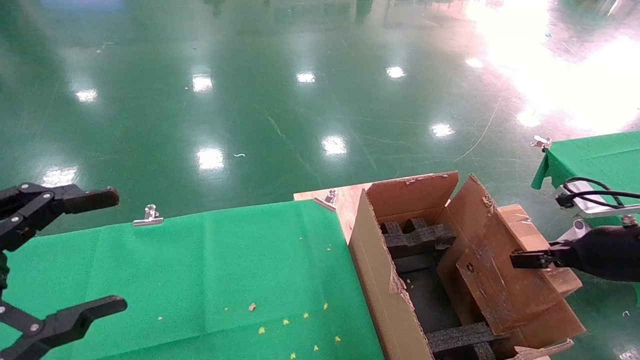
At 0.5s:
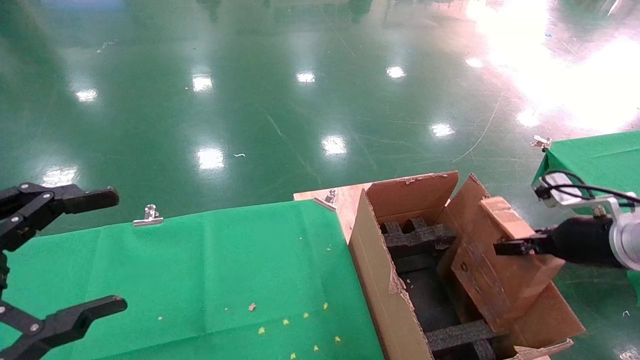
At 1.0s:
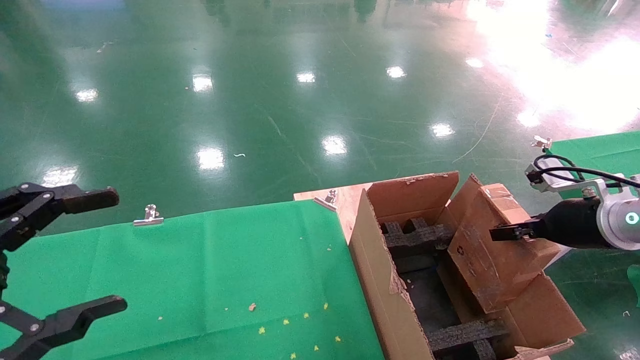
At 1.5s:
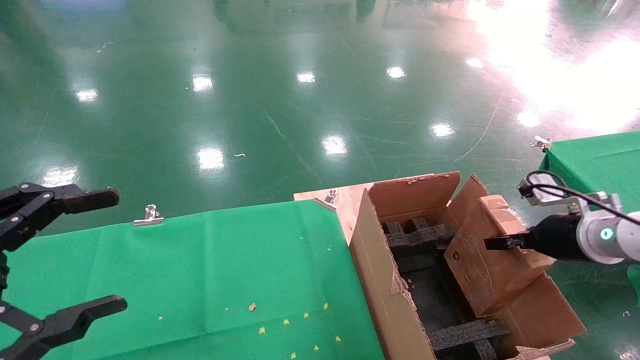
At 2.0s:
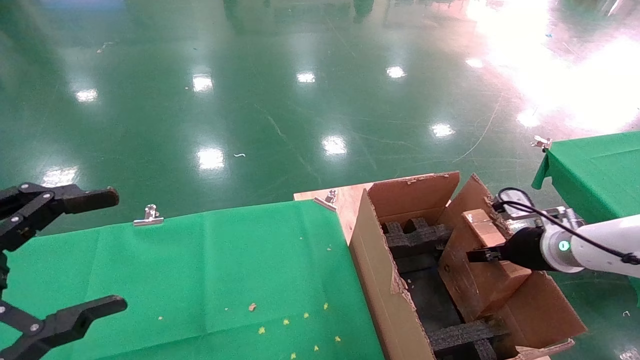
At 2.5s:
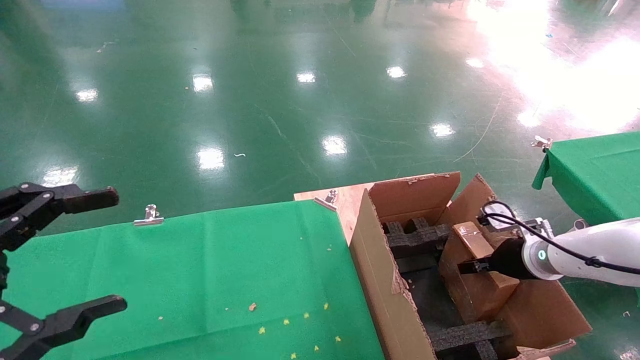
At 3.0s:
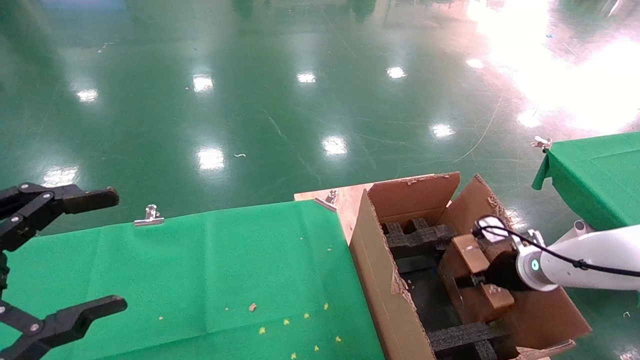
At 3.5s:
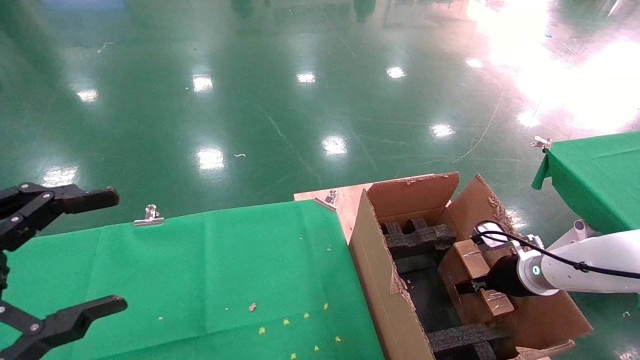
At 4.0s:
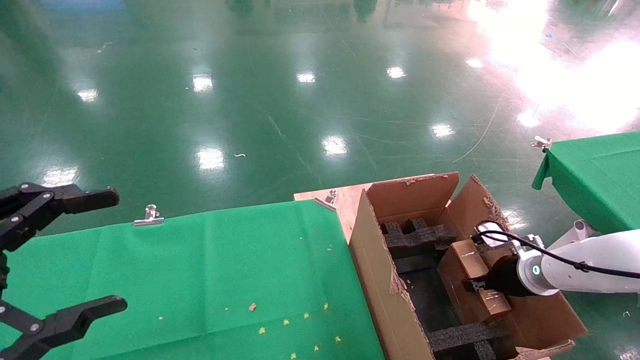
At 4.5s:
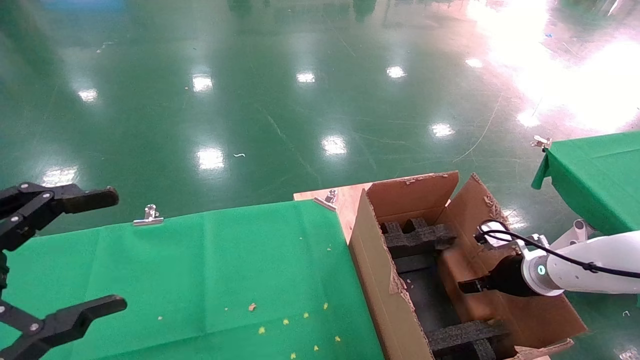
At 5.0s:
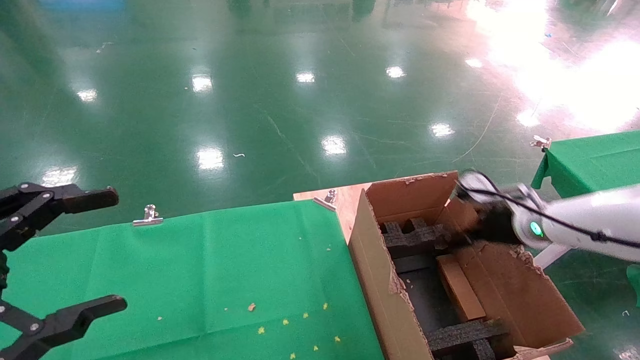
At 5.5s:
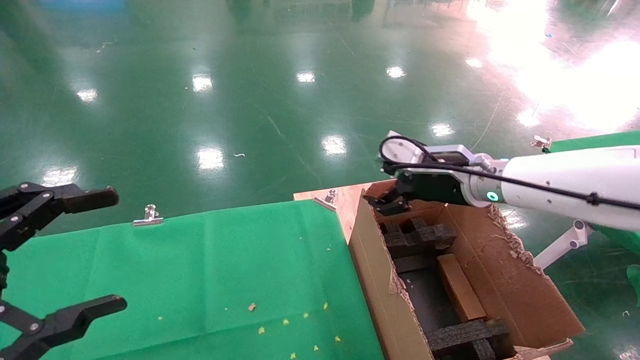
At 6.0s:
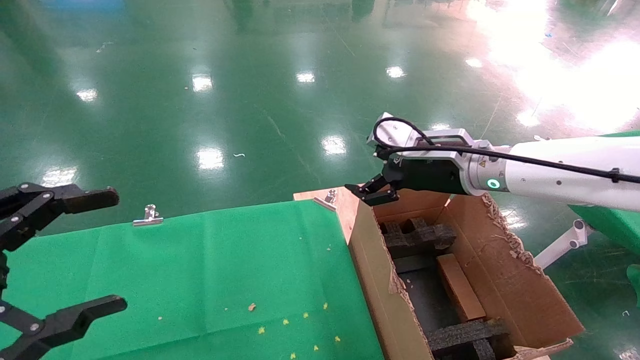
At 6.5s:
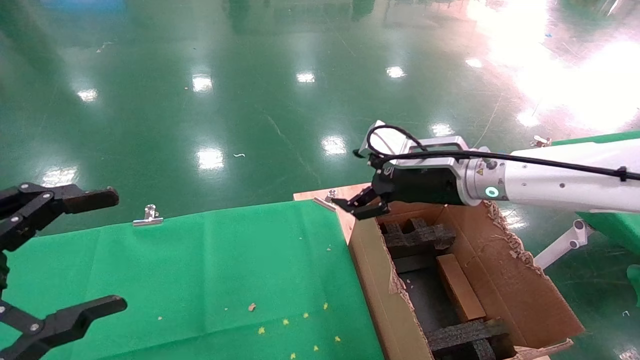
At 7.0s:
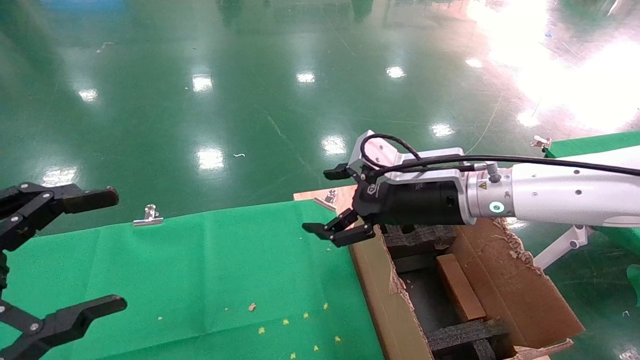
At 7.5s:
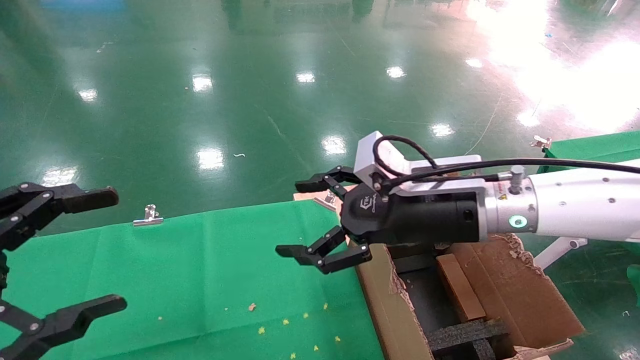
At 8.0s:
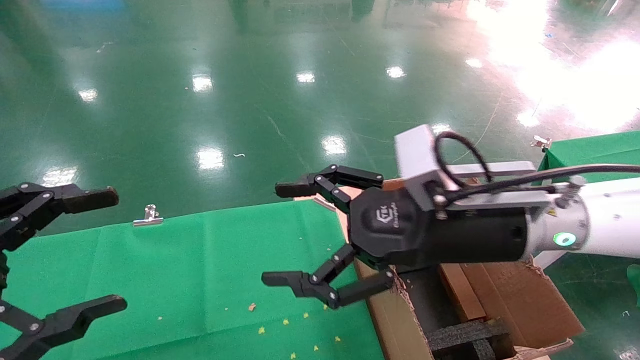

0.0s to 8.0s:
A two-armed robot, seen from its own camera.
Task of the whole recording: using a robotic arm to pick up a cardboard box and palace it the carton.
Step, 0.0s to 5.0s: Place the mouse and the power cord paper box into the container.
0.0s to 2.0s: The right gripper goes about 10 cm forward and downward.
2.0s to 4.0s: The right gripper shifts some 5 cm downward.
4.0s to 6.0s: The right gripper moves upward and to the left, roughly 25 cm, and opens up.
6.0s to 8.0s: The right gripper moves backward and to the left, roughly 15 cm.

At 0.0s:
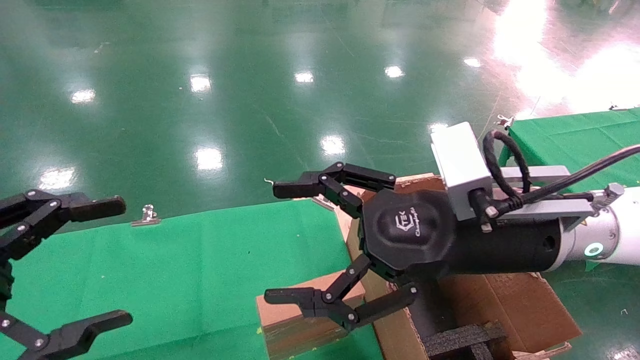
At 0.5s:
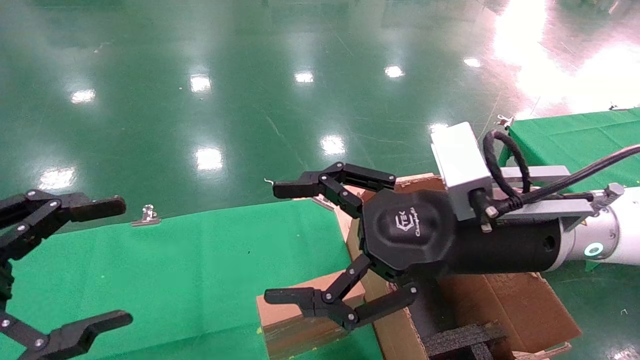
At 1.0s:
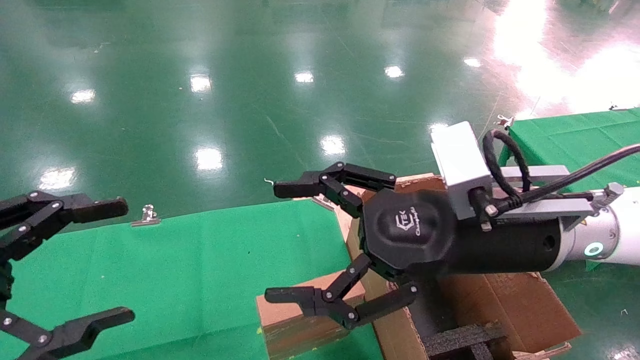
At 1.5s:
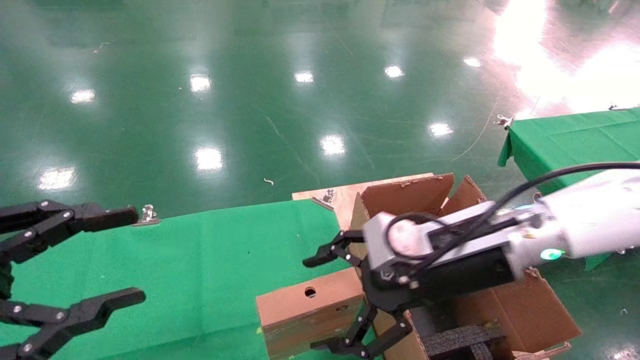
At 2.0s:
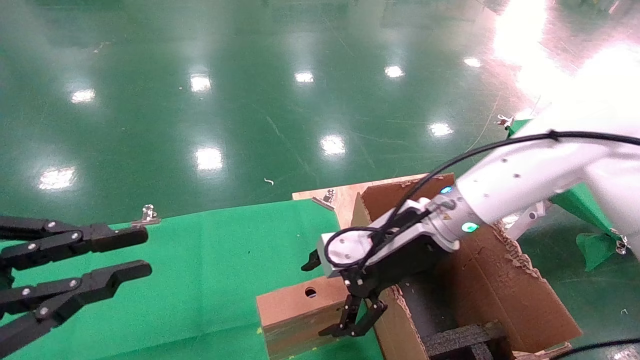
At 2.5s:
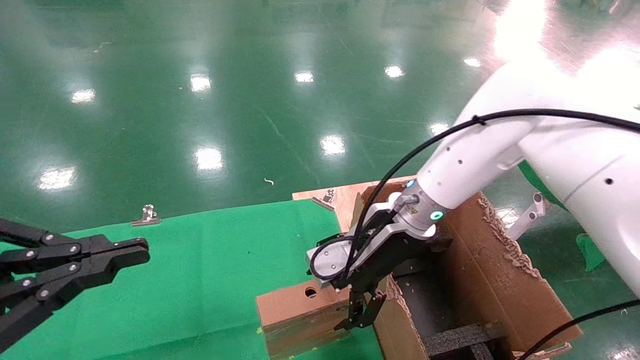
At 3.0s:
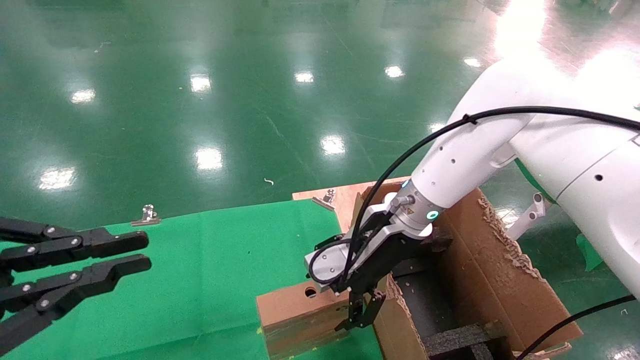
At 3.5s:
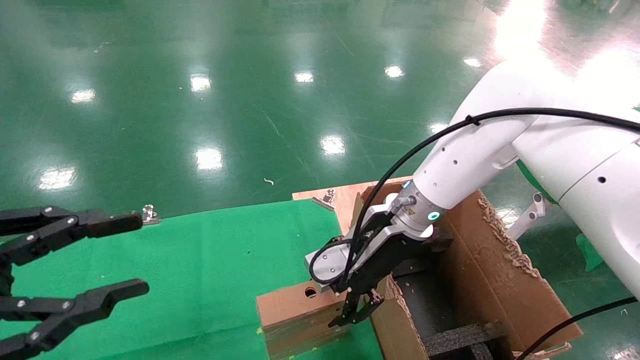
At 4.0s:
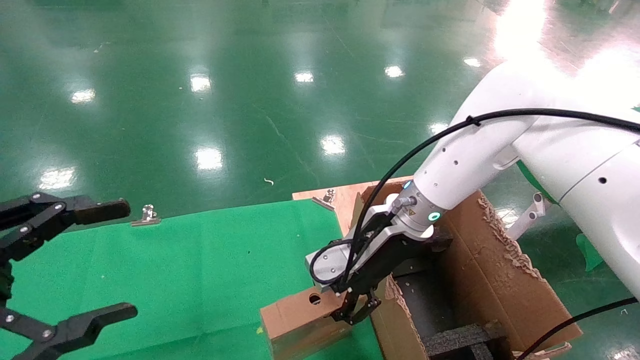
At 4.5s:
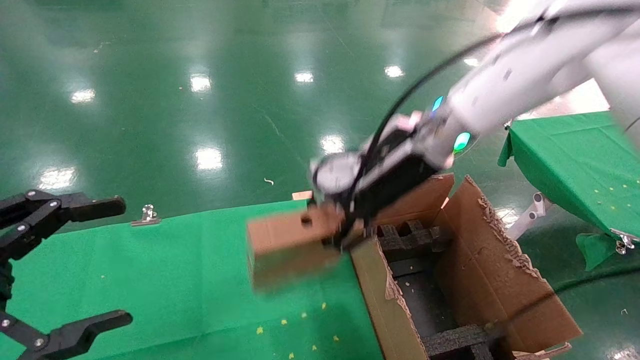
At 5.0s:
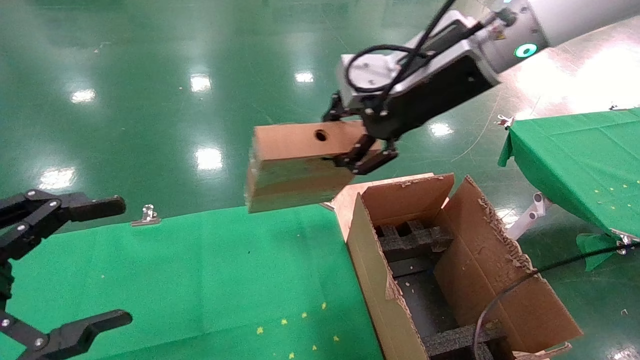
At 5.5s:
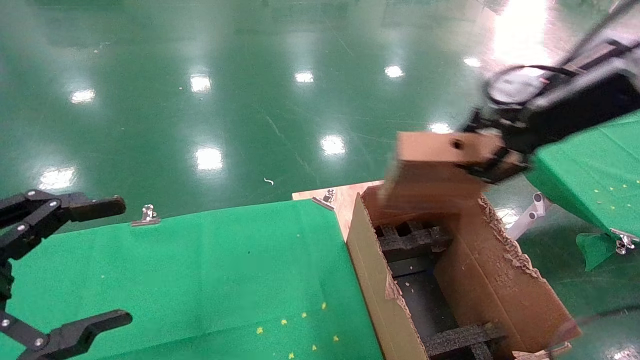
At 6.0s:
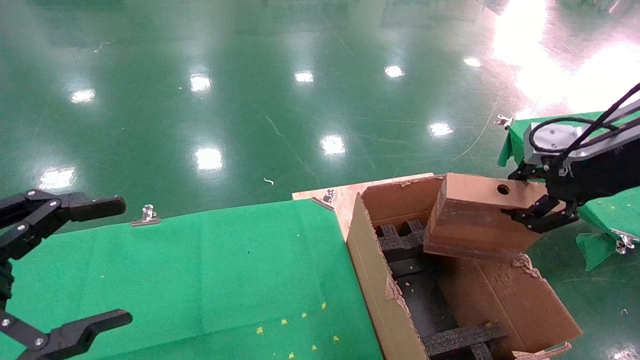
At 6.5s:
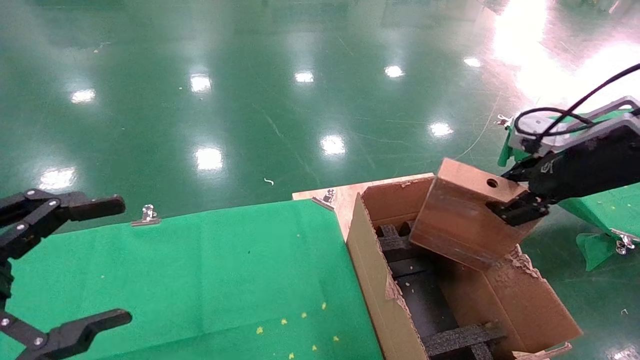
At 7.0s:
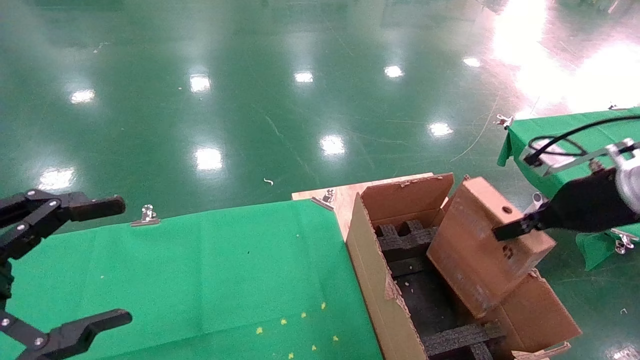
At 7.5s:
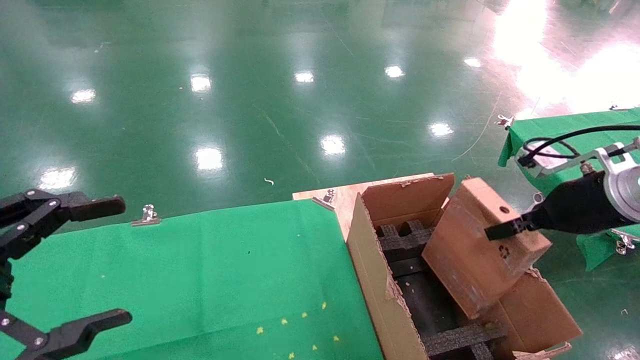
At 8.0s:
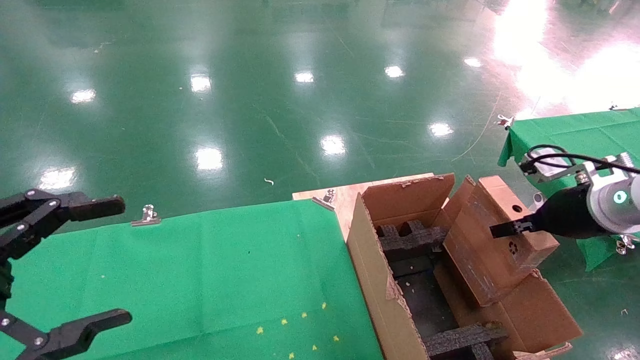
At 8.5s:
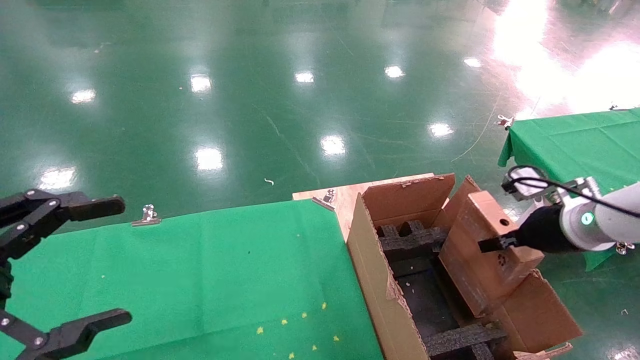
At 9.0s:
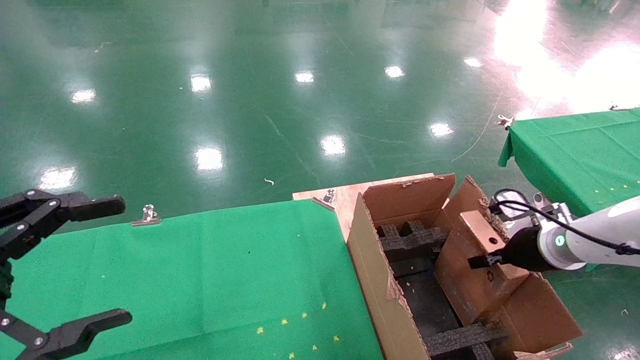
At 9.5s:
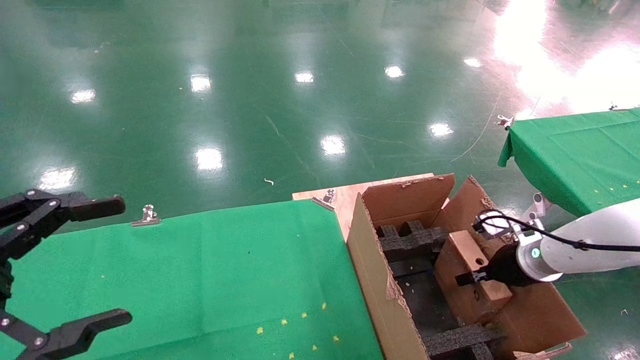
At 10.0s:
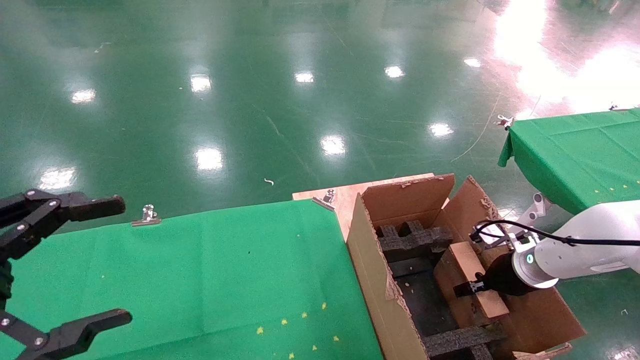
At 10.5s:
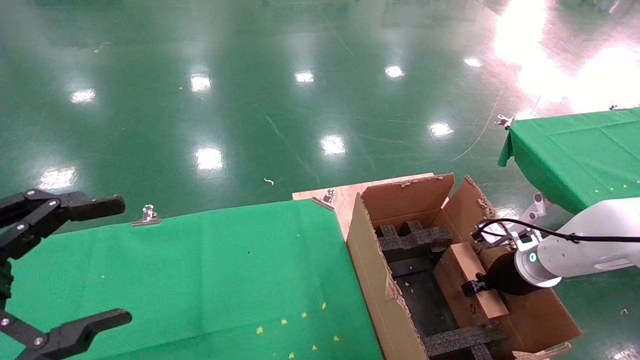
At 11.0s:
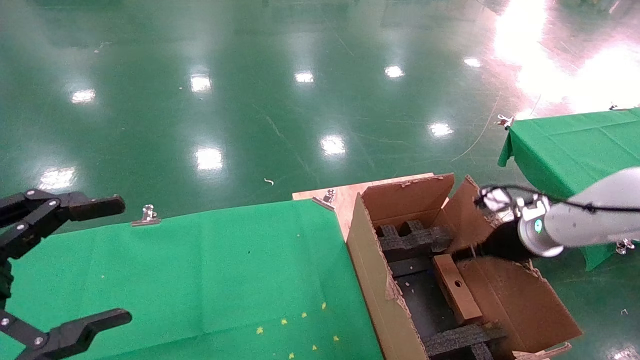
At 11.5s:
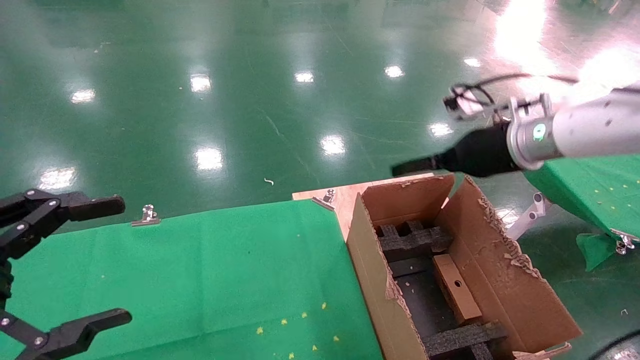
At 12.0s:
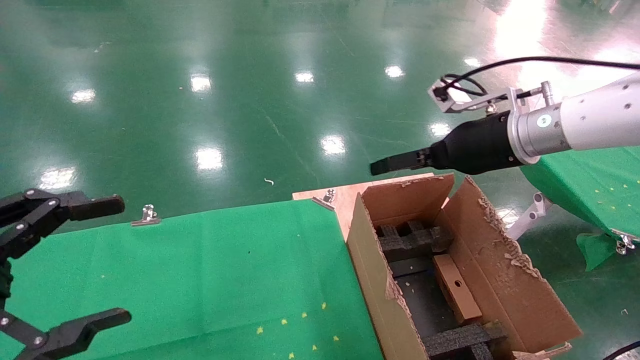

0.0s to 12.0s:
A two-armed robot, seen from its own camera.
Task of the whole recording: using a robotic arm to pick up a cardboard box and palace it the carton.
Step, 1.5s to 3.5s: Pick up the mouse and the power cord paper box.
Step, 4.0s to 10.5s: Place the mouse and the power cord paper box into the container.
0.0s to 2.0s: The right gripper is displaced forward and downward by approximately 10 cm, while the left gripper closes.
2.0s to 4.0s: The left gripper opens. Meanwhile the right gripper closes.
4.0s to 6.0s: The right gripper goes about 30 cm to the right, upward and backward.
6.0s to 8.0s: The right gripper goes approximately 10 cm downward.
8.0s to 10.0s: The right gripper goes some 15 cm downward and forward.
10.0s to 12.0s: The right gripper is displaced upward and to the left by about 25 cm, and opens.
